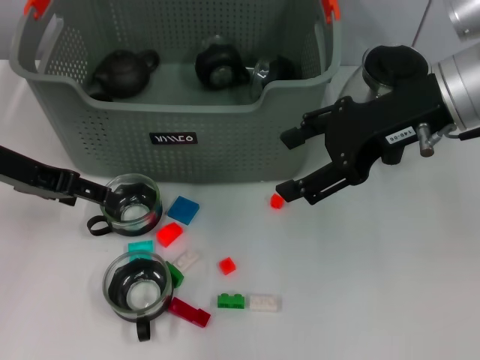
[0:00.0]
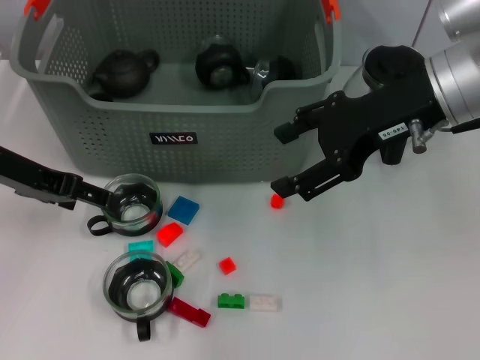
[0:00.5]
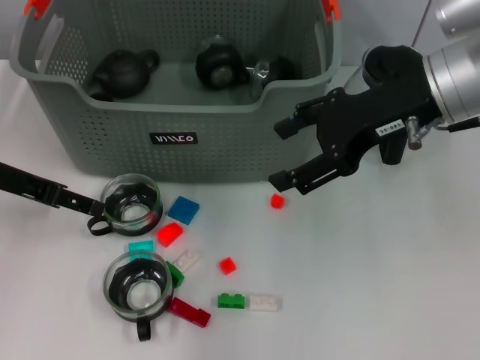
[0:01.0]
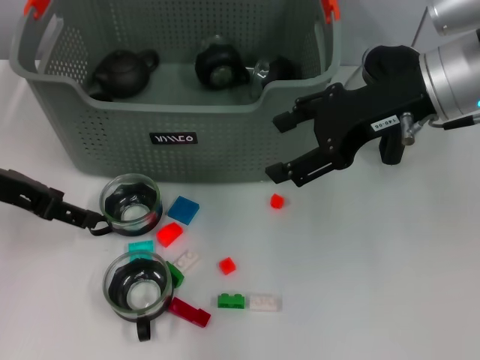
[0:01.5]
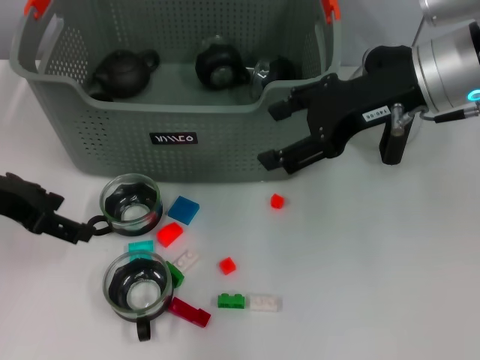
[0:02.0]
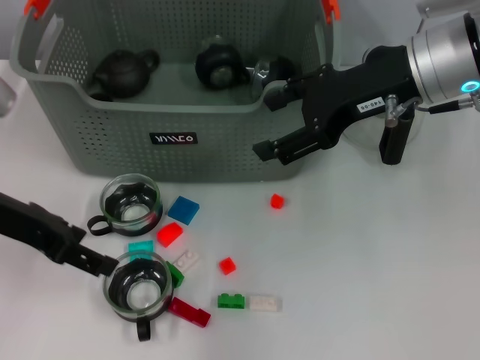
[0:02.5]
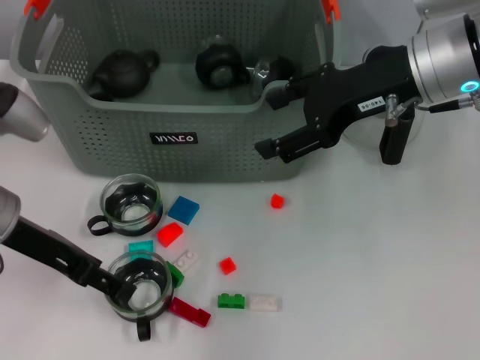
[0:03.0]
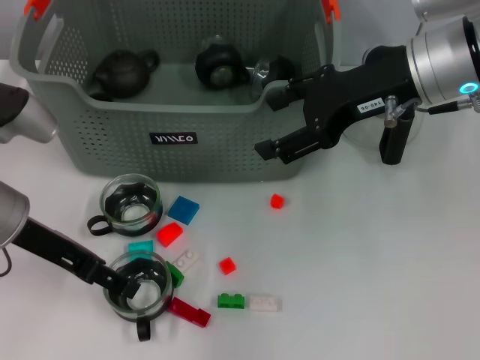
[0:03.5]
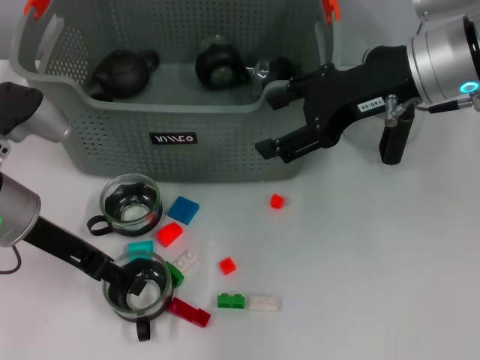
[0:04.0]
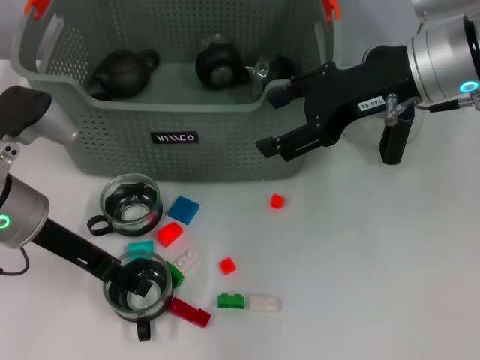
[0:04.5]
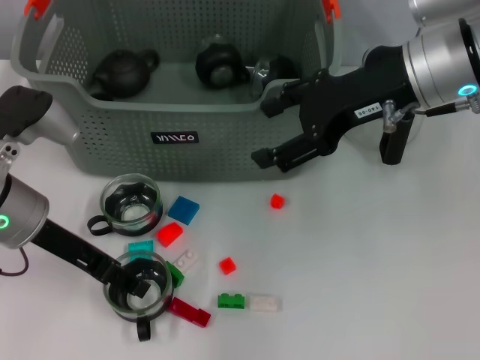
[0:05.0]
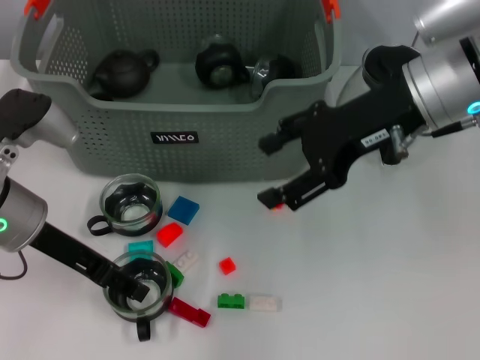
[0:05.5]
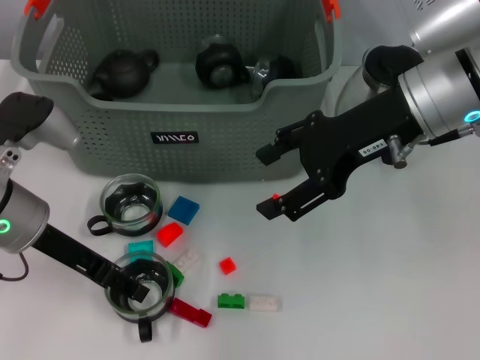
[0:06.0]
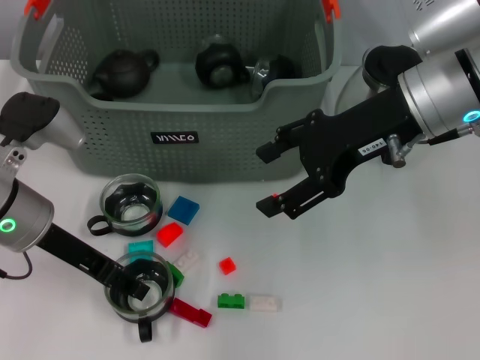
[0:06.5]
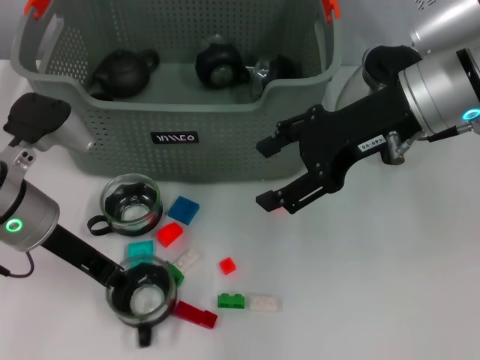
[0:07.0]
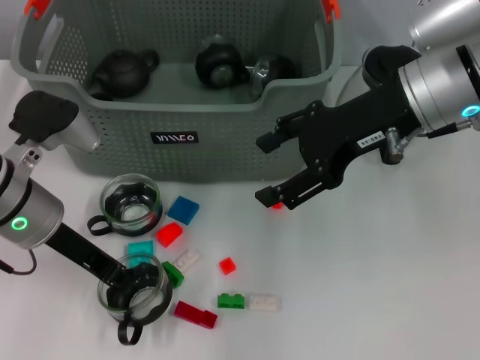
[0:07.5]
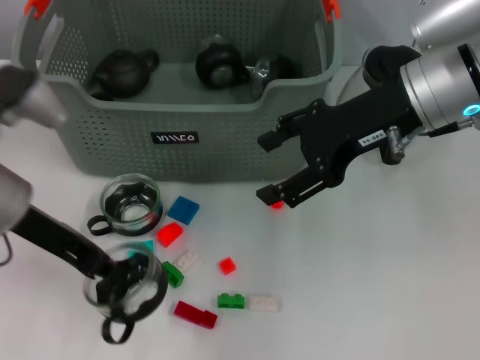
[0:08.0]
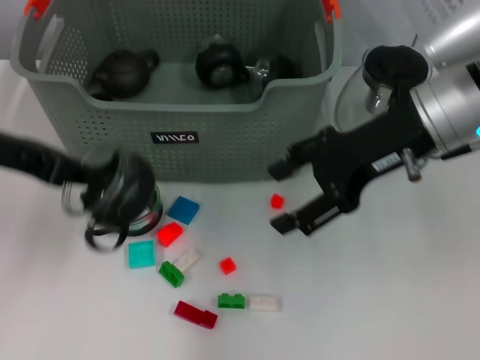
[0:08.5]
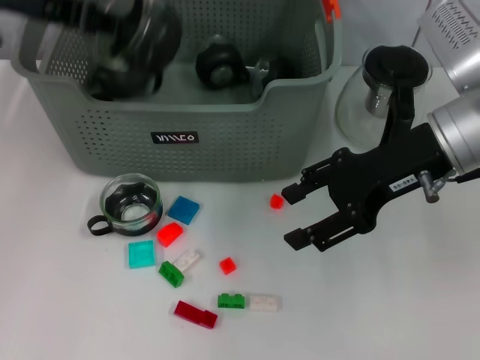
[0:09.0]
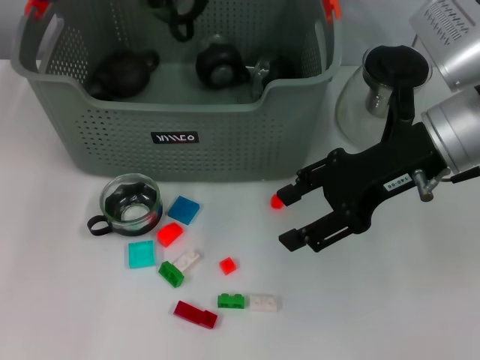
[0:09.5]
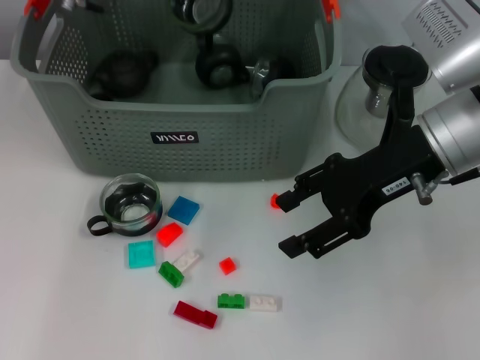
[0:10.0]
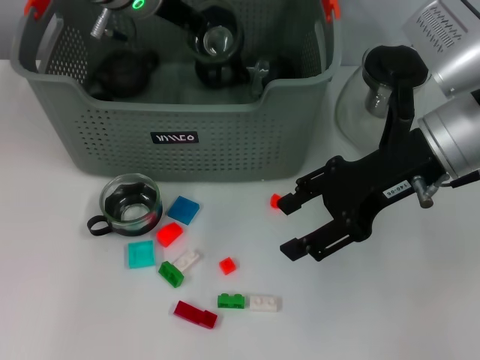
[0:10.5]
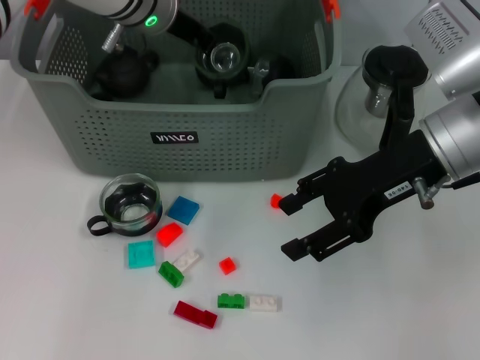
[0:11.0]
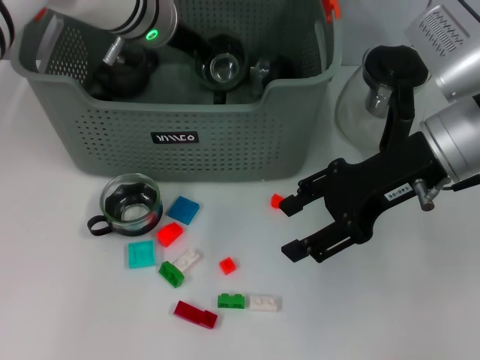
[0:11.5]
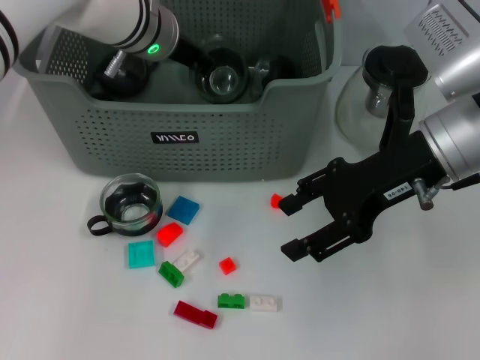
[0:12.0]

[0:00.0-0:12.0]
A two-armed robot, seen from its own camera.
Task of the whole recording: pick up the teacup on the table and place it into the storage bin, pick up the block on the table and place it into the storage bin.
Step, 0:00.0 to 0:07.0: Grasp the cup with left gripper.
0:02.0 to 0:04.0: The left gripper moves to the right, some 5 cm.
0:04.0 to 0:06.0: The grippers move only a little.
0:06.0 to 0:08.0: The left gripper closes.
0:08.0 to 0:10.0: The left gripper heads forward, upward and to the right, covering roughly 20 cm.
0:10.0 to 0:12.0: The left gripper moves downward, roughly 5 cm.

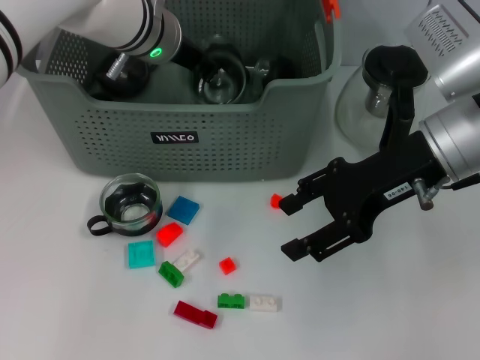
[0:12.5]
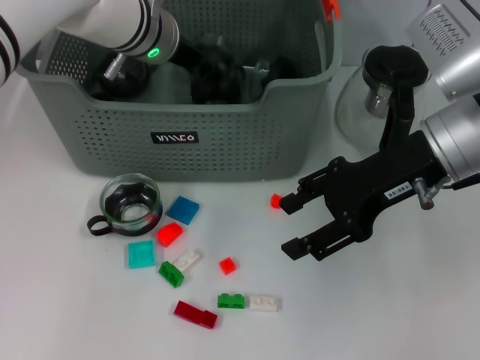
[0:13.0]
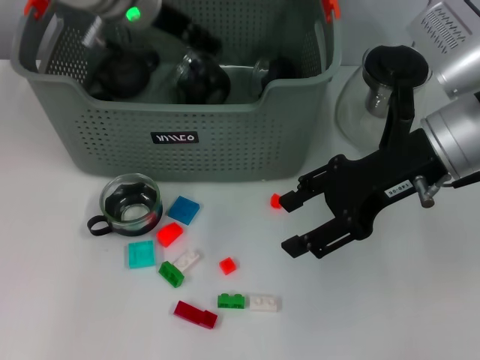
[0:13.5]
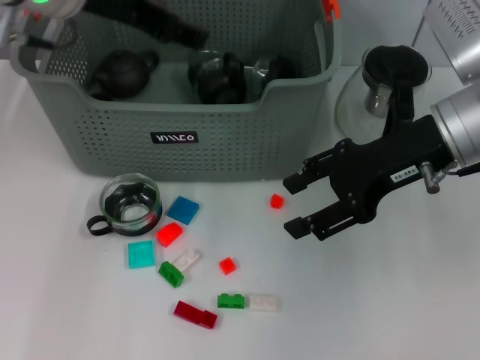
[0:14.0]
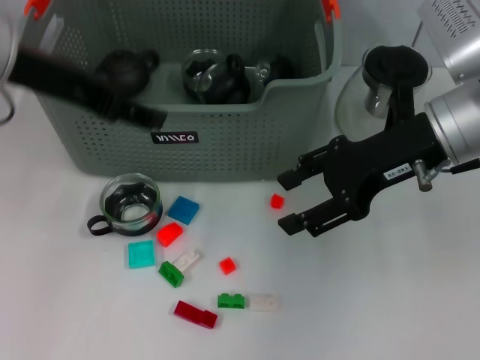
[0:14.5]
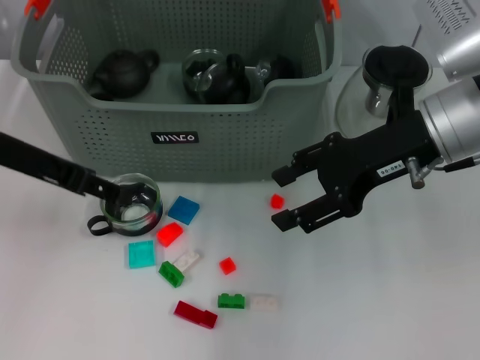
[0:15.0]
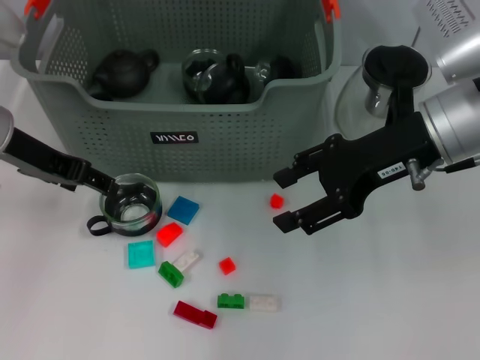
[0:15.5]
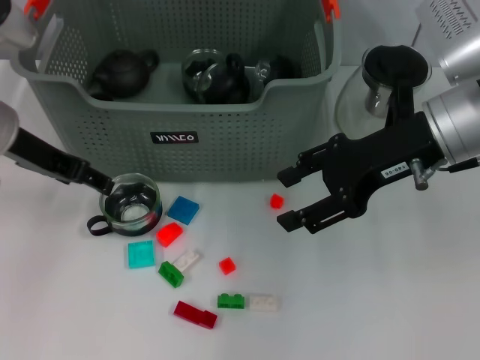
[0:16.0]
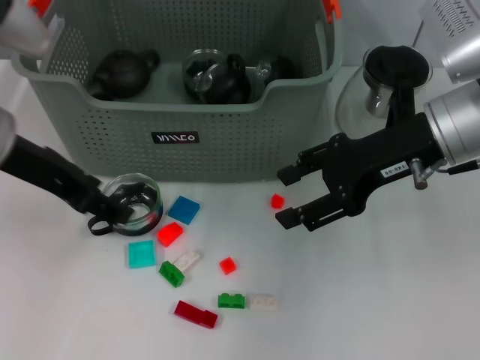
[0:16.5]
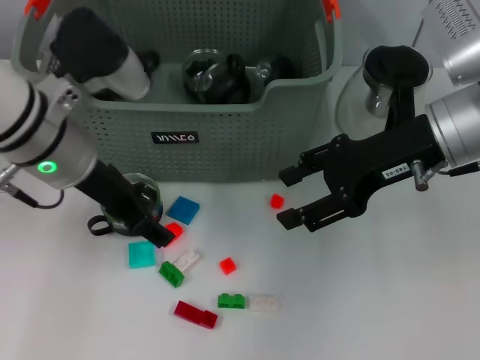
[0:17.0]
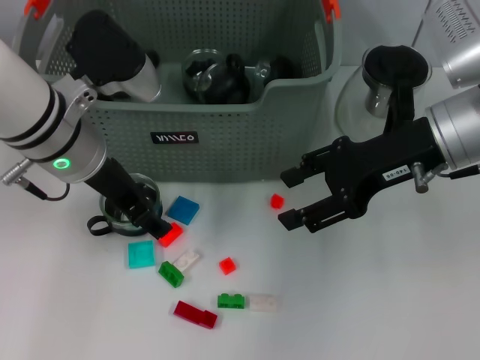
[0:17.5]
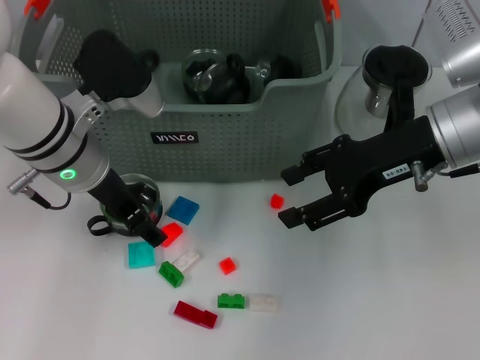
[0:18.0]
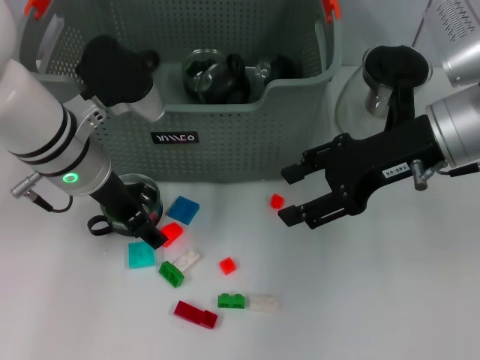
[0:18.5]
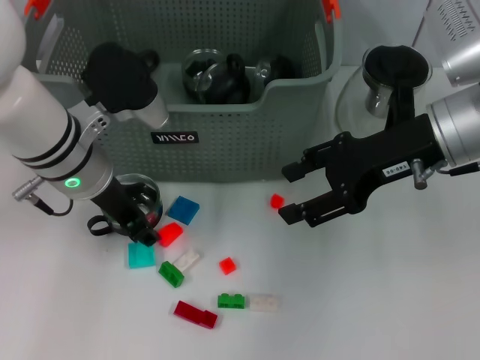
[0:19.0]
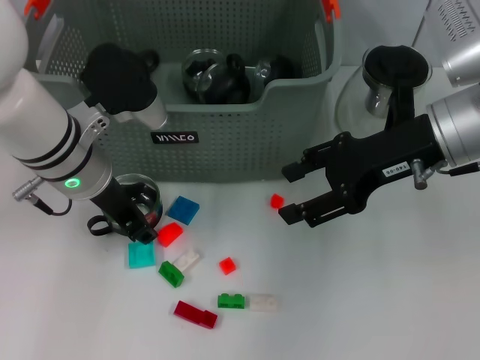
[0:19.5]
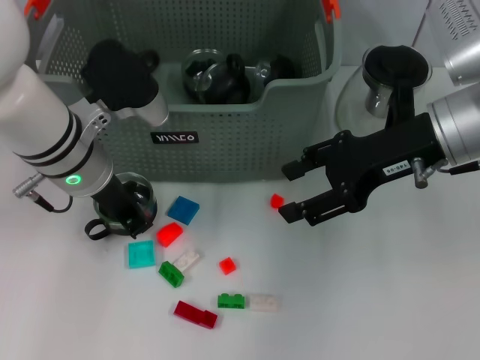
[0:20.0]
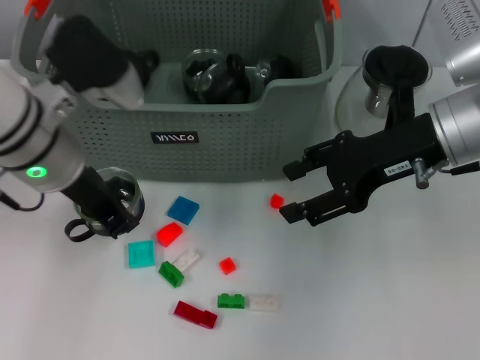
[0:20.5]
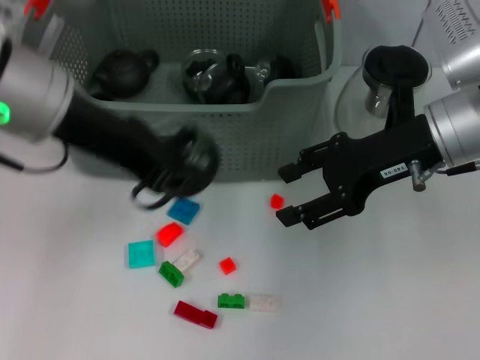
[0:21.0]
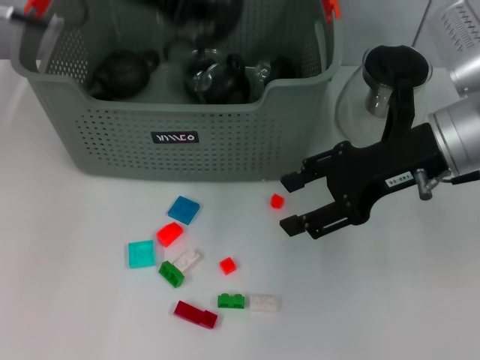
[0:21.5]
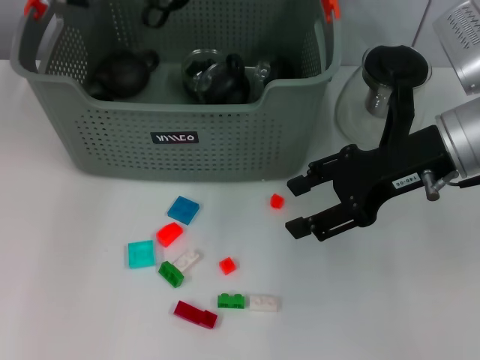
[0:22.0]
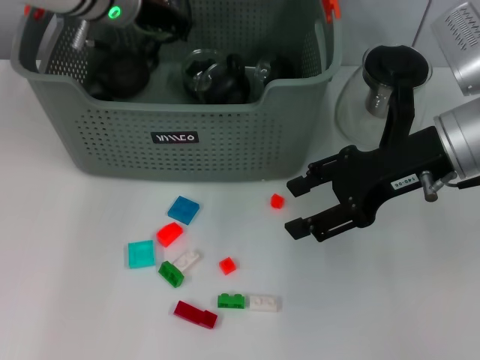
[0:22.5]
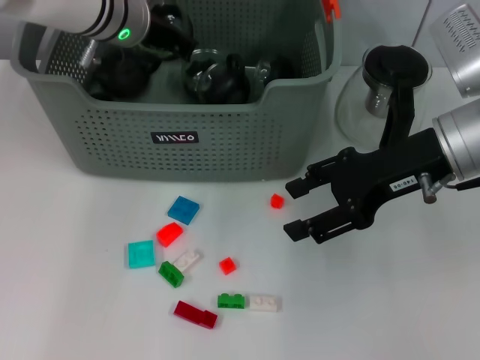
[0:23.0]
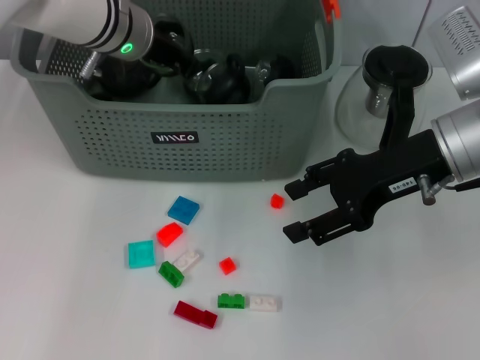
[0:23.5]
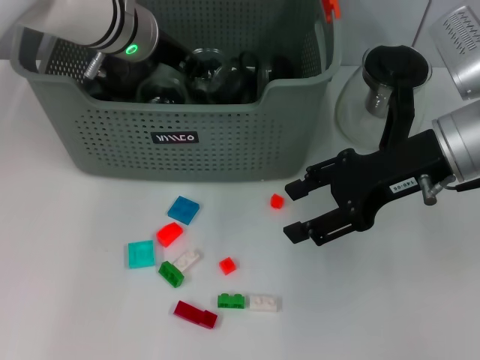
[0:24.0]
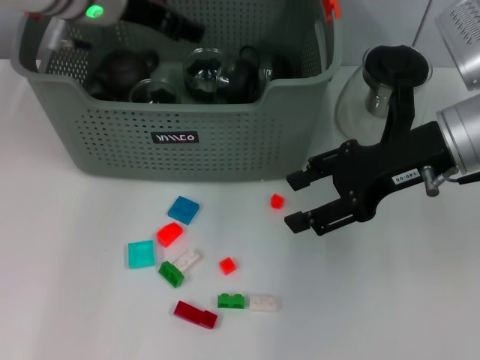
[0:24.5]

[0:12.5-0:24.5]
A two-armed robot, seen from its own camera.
Task of the whole recording: pick up the teacup on the table and place it into the storage bin, pick up the block on the table and place it into the storage bin.
Step, 0:14.0 to 0:20.0: Grasp the cup with left gripper.
0:12.5 to 0:14.5: The left gripper moves backward, to the left and upward, approximately 20 cm, and opens its fingers.
0:14.5 to 0:16.5: The left gripper travels downward by approximately 5 cm.
0:16.5 to 0:18.5: The left gripper goes about 10 cm downward and to the right.
0:18.5 to 0:20.5: The left gripper closes up.
0:20.5 to 0:22.5: The left gripper moves forward, some 15 cm.
0:22.5 to 0:24.5: The left gripper shifts by about 5 cm, and opens its fingers.

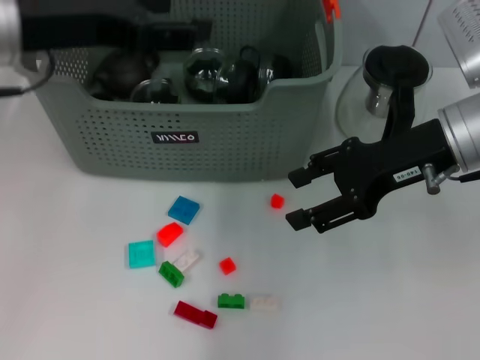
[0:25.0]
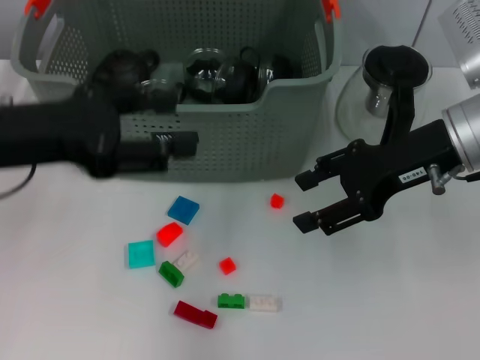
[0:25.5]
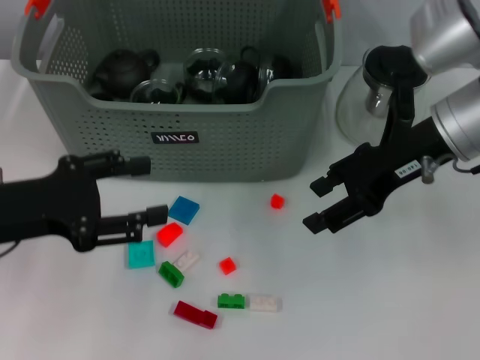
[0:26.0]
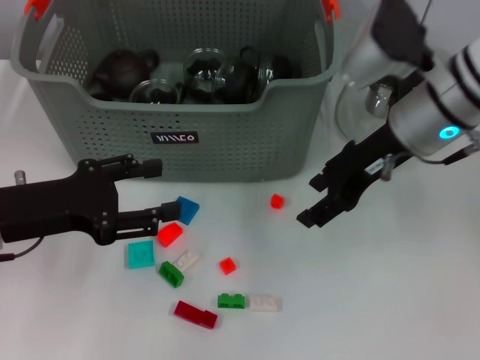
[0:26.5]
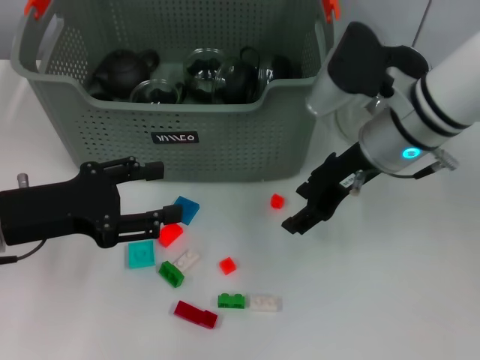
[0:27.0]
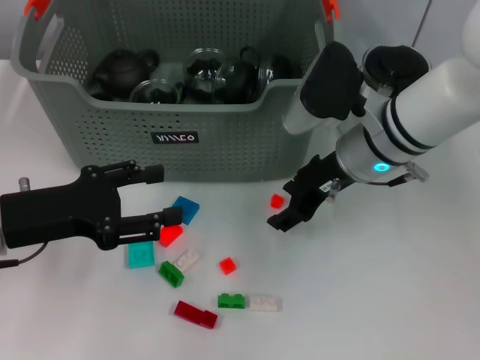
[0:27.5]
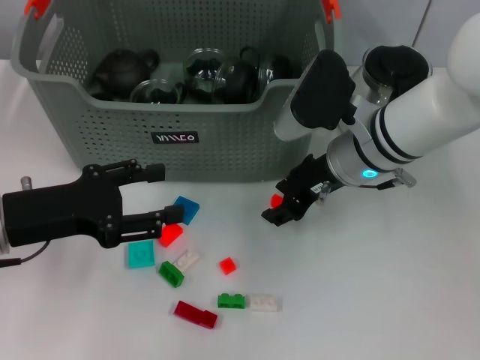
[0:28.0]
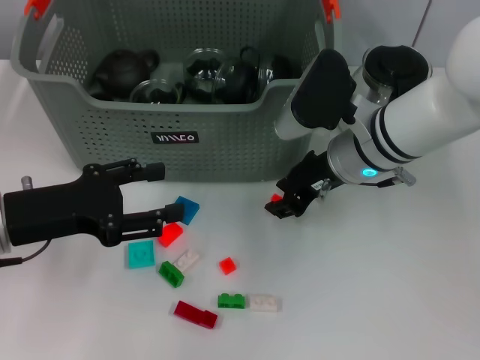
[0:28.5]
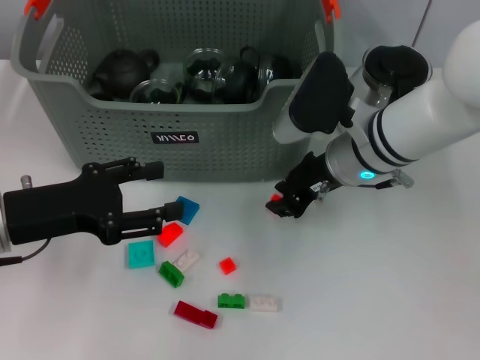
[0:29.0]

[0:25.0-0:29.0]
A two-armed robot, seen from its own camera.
Task of the whole recording: pick up the teacup on the table and place it into the storage bin, pick up the block on the table and place it into the storage bin.
0:25.0 to 0:27.0: The left gripper heads downward, covering about 15 cm. The right gripper shifts approximately 5 cm to the left.
0:27.0 to 0:29.0: The right gripper closes its fingers.
